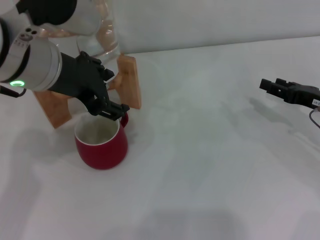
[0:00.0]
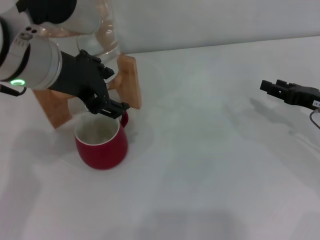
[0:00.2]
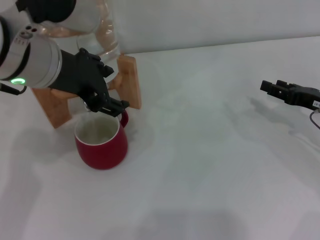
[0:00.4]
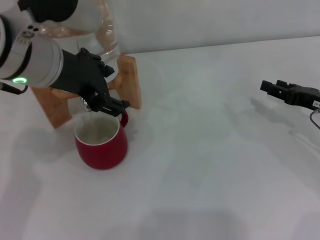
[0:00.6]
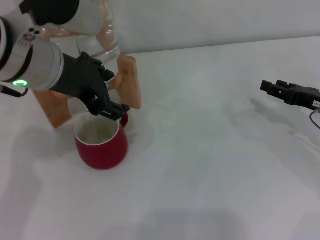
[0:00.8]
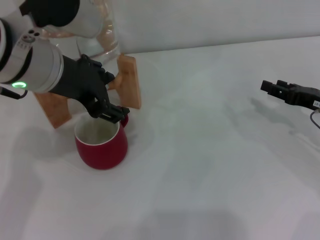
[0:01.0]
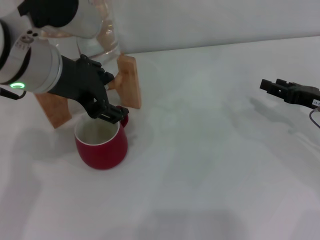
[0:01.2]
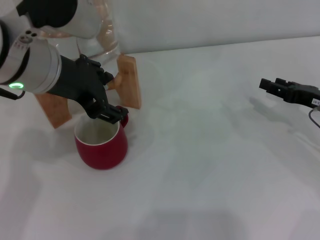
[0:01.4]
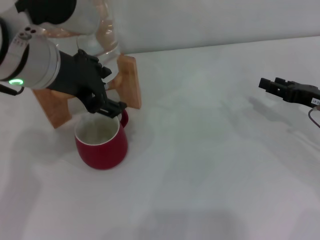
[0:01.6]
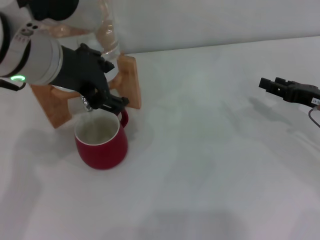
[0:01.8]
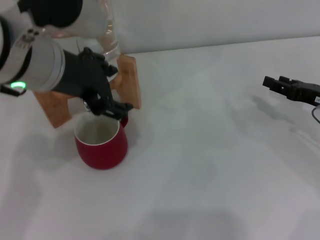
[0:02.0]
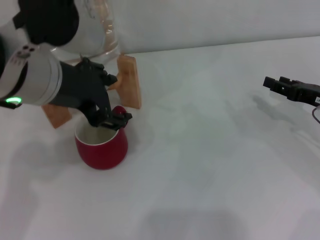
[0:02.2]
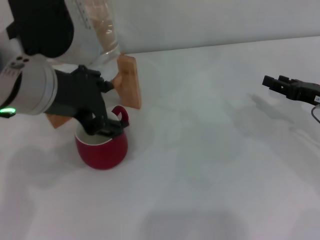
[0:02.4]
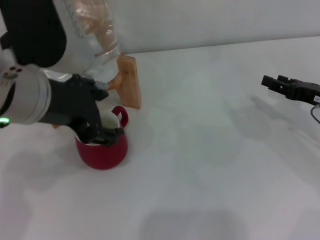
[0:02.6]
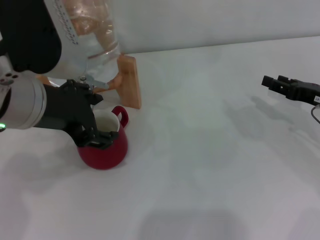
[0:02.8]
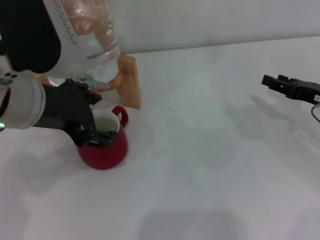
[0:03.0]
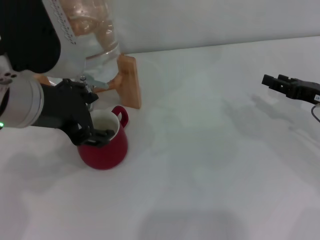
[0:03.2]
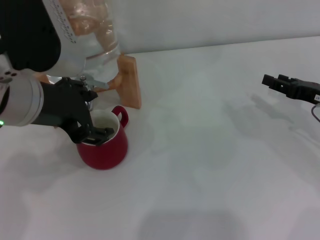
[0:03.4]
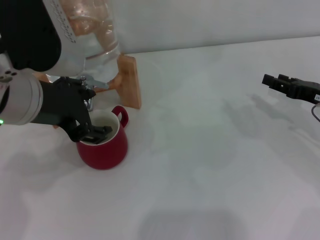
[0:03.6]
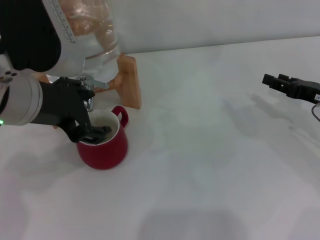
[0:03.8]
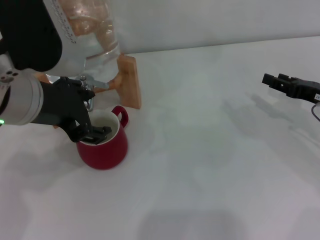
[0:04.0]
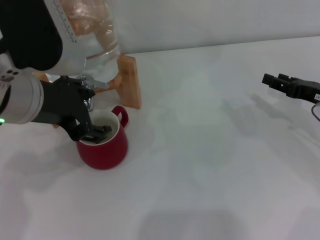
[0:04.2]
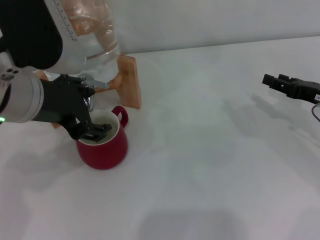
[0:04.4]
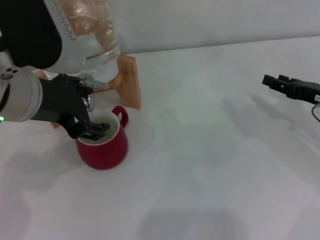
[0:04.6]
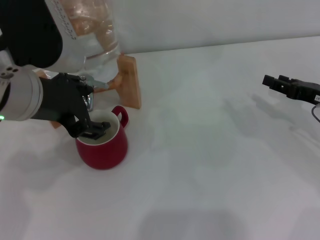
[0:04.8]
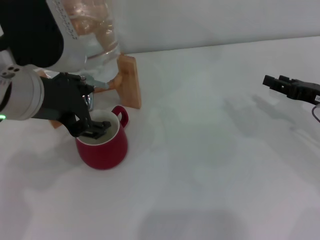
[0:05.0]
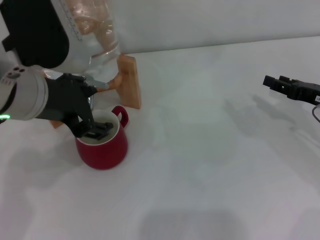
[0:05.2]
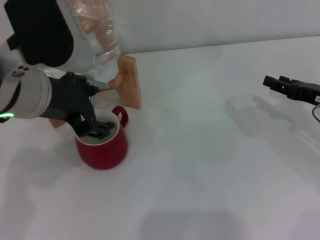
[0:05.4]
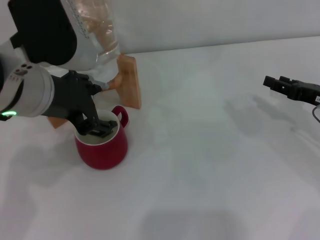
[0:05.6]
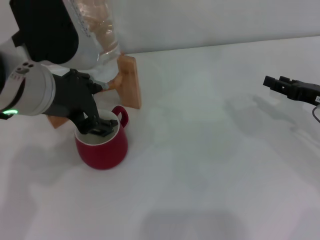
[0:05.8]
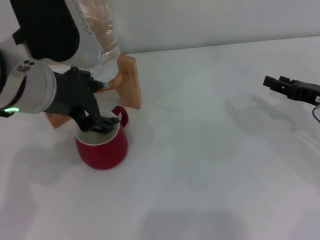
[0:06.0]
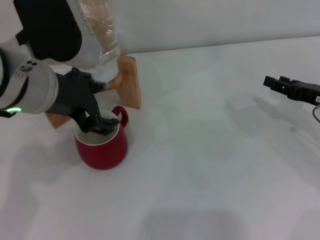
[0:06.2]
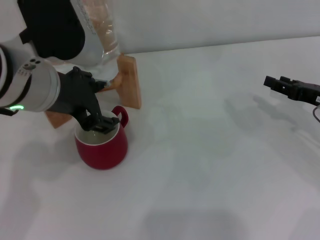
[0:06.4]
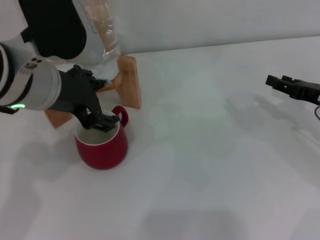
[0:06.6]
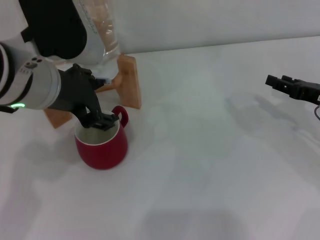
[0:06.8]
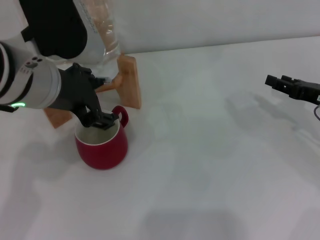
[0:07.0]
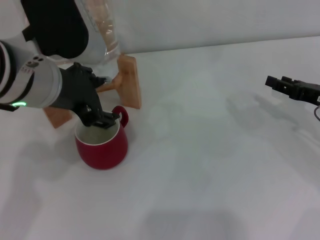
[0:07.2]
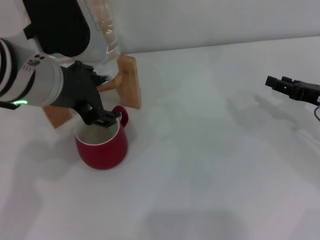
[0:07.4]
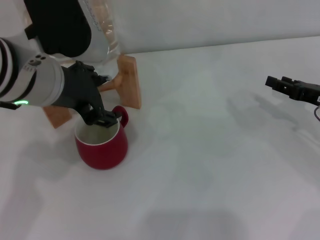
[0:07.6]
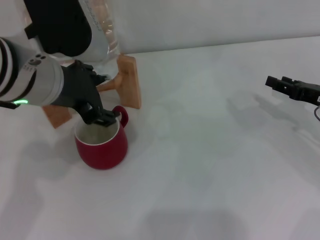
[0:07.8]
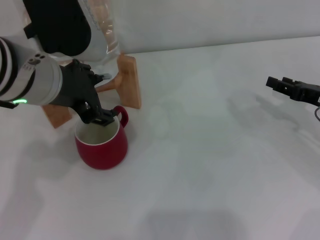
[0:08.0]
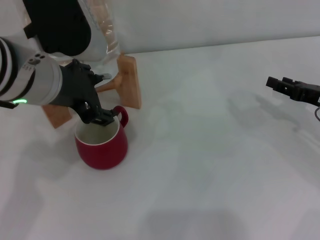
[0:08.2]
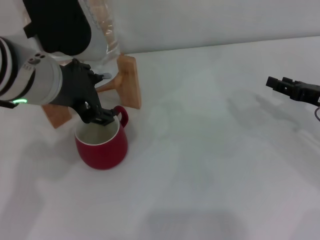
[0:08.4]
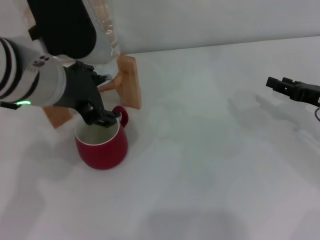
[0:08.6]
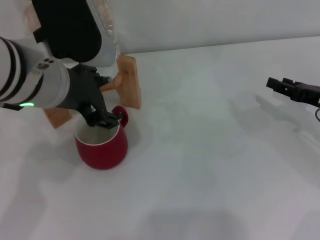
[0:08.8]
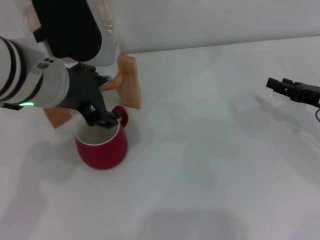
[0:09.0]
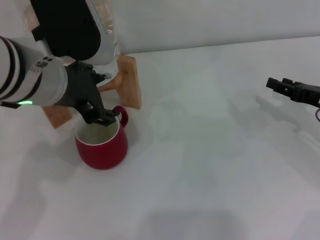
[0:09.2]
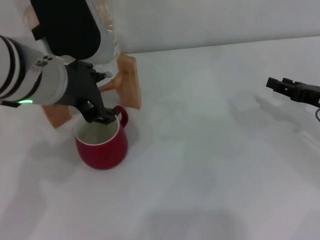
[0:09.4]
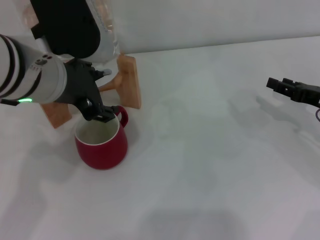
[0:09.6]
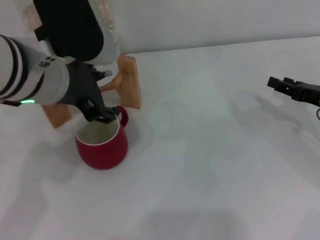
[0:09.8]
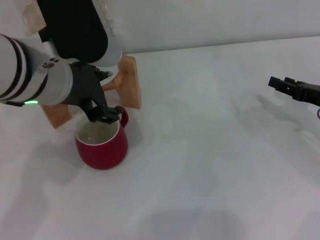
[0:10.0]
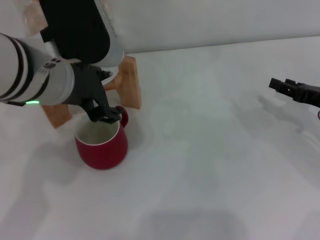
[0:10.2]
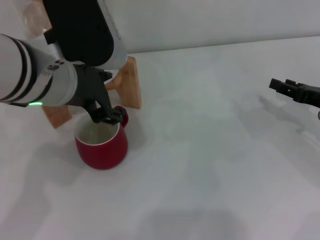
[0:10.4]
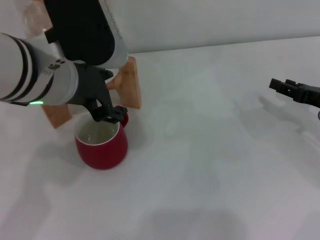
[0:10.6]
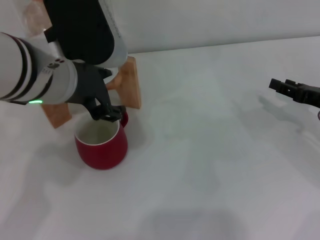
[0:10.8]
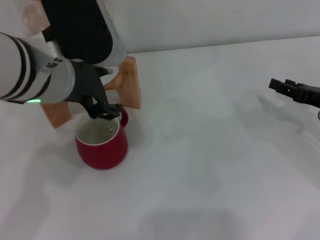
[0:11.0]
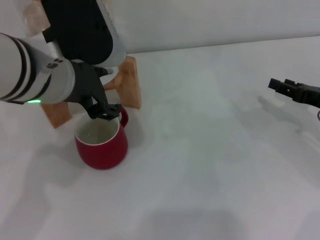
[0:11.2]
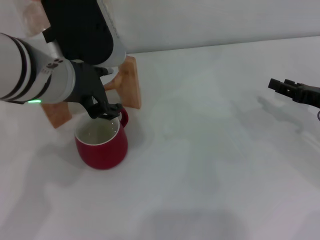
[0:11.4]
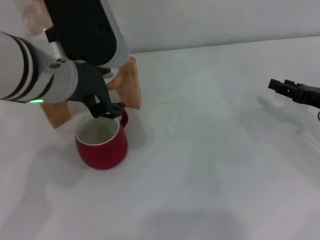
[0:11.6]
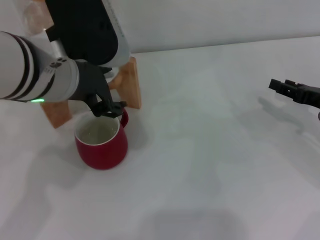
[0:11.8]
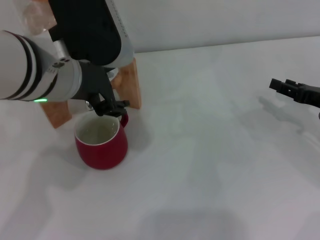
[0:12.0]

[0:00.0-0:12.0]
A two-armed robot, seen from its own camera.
Task of the whole recording: the right gripper pick up the red cup and place it horizontally under the faucet, the left gripper turn on the faucet to fill the cup, and then turn off the faucet.
Step, 0:00.2 to 0:11.4: Close the dispenser valve with the left gripper.
0:00.0 to 0:01.6: Neither gripper changes place.
0:01.6 to 0:03.0: There are only small adjustments of the grippers.
0:03.0 to 0:04.4: Both grippers stay put.
0:04.4 to 0:06.0: The grippers stay close to where they were, moving slightly.
0:06.0 to 0:07.6: Neither gripper changes place.
0:07.6 to 0:09.0: Both grippers stay put.
0:09.0 to 0:10.4: Neither gripper changes place.
0:10.4 to 0:12.0: Both grippers stay put.

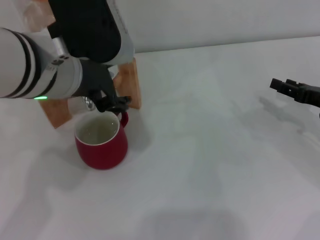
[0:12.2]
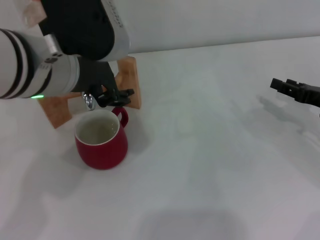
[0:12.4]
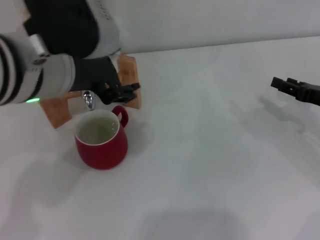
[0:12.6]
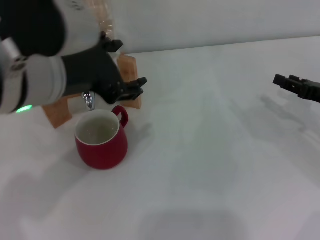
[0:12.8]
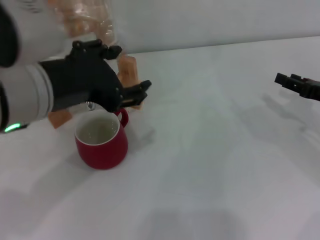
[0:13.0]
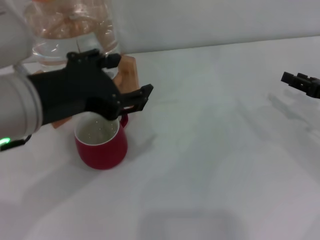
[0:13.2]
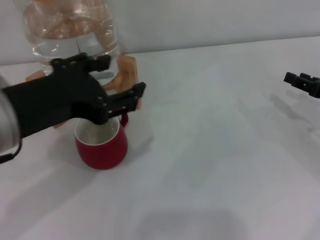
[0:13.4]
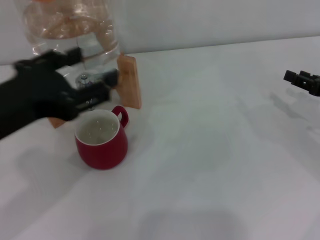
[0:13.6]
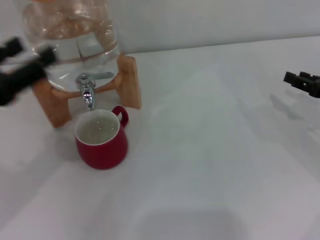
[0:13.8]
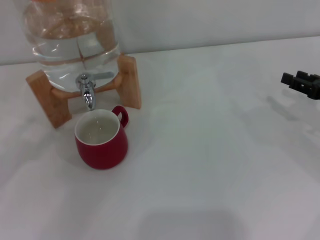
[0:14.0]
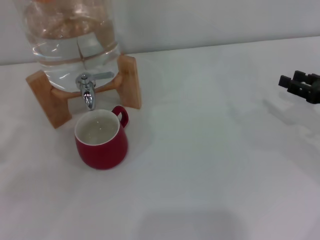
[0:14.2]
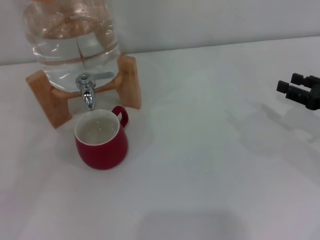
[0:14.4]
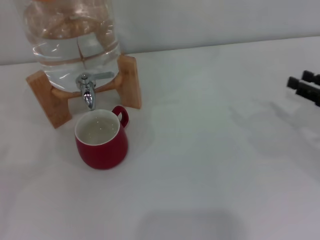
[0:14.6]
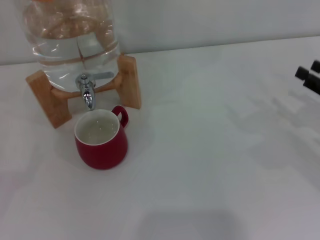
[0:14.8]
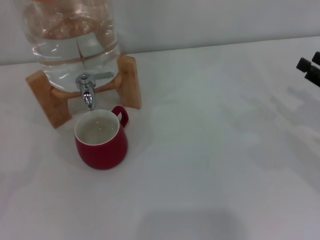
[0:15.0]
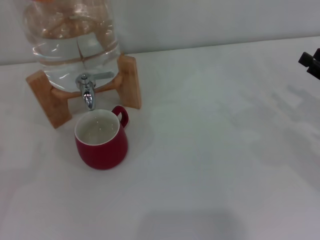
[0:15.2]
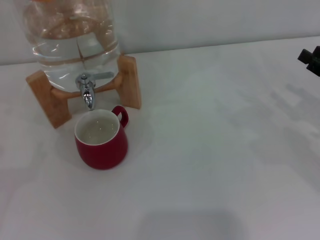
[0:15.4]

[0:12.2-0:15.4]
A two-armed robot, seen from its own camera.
Task of the whole recording: the right gripper pick up the red cup and place it horizontally under the faucet, the left gripper turn on the faucet to fill the cup, and then turn off the faucet.
0:12.2 to 0:13.8: The left gripper goes some 15 cm to the left and backward.
0:13.8 to 0:15.4: The left gripper heads to the left and downward, covering roughly 20 cm.
